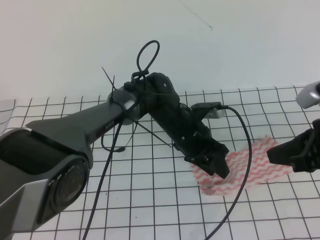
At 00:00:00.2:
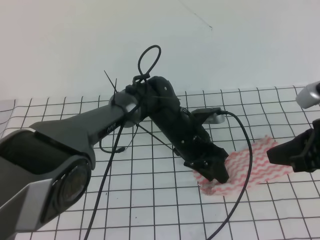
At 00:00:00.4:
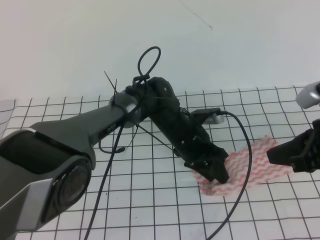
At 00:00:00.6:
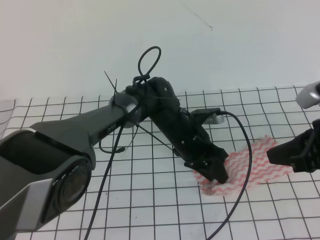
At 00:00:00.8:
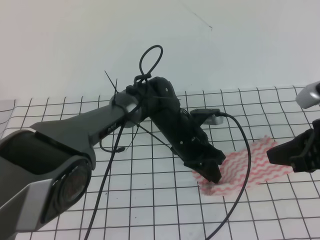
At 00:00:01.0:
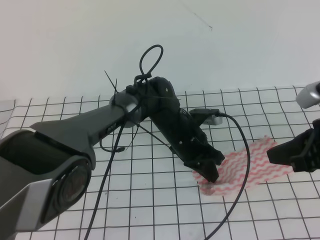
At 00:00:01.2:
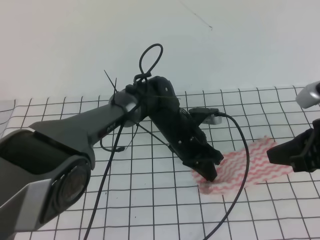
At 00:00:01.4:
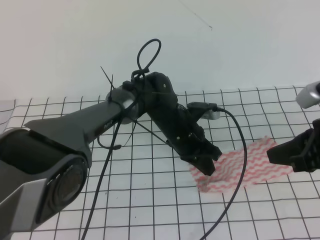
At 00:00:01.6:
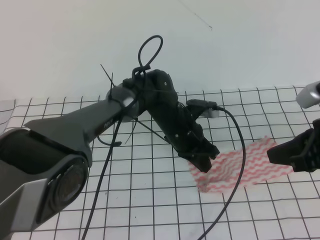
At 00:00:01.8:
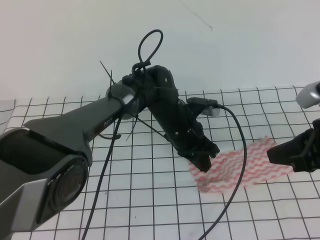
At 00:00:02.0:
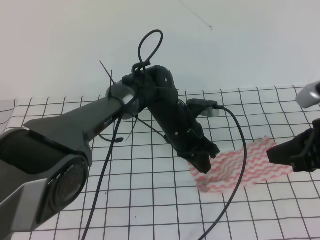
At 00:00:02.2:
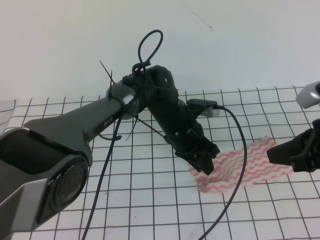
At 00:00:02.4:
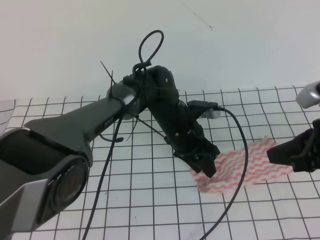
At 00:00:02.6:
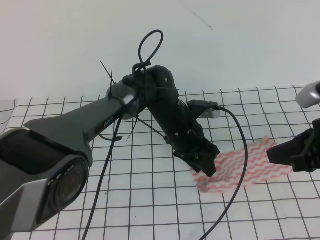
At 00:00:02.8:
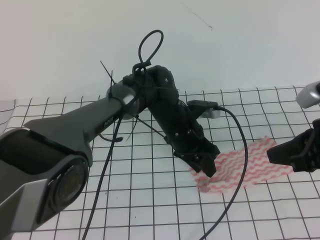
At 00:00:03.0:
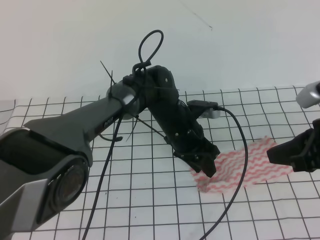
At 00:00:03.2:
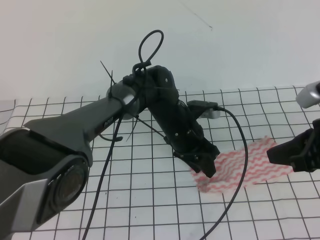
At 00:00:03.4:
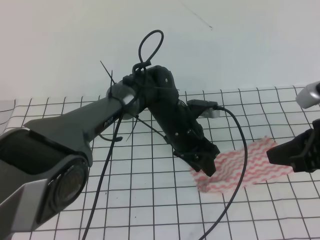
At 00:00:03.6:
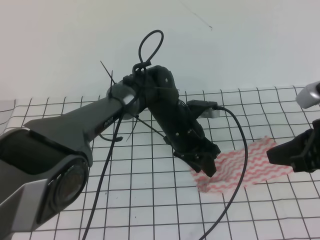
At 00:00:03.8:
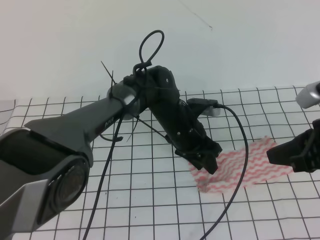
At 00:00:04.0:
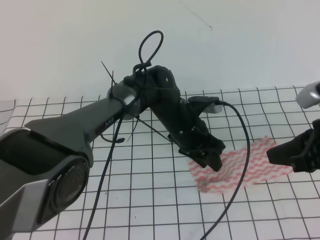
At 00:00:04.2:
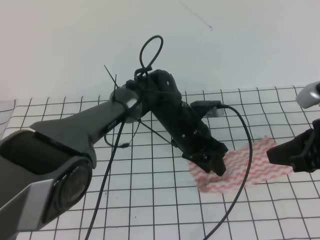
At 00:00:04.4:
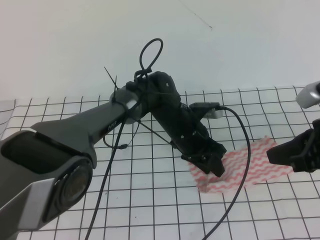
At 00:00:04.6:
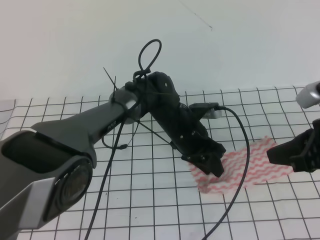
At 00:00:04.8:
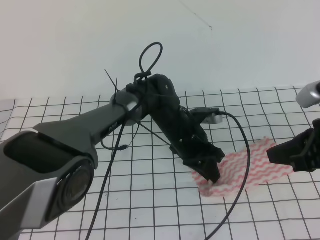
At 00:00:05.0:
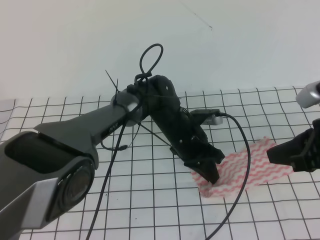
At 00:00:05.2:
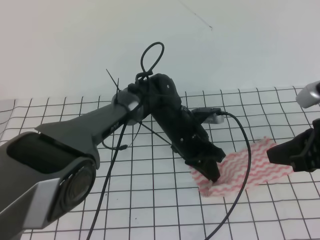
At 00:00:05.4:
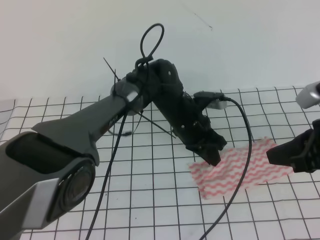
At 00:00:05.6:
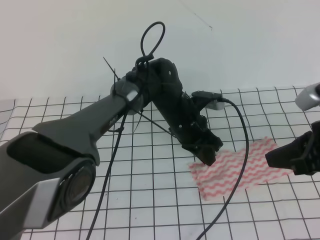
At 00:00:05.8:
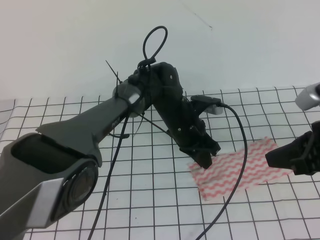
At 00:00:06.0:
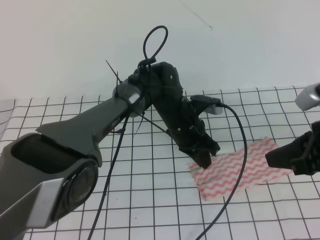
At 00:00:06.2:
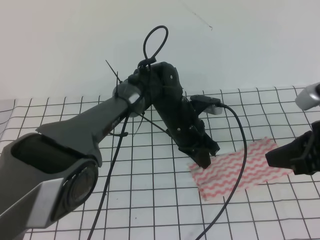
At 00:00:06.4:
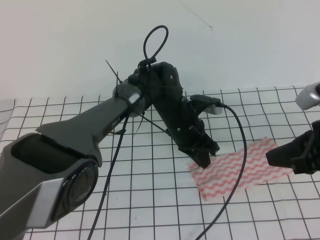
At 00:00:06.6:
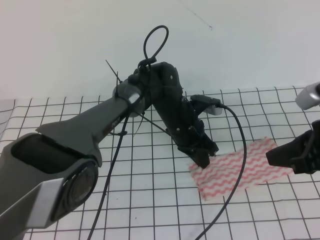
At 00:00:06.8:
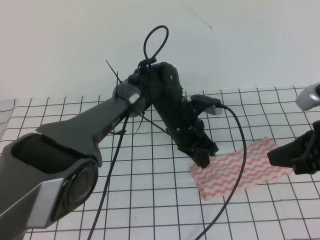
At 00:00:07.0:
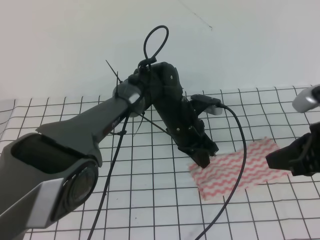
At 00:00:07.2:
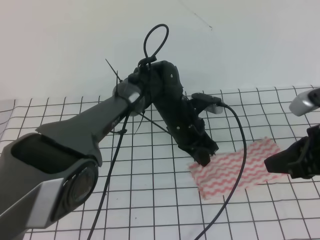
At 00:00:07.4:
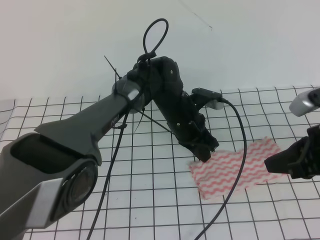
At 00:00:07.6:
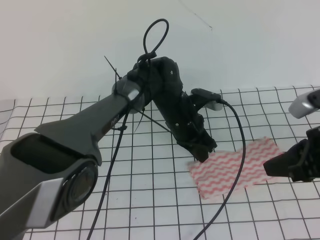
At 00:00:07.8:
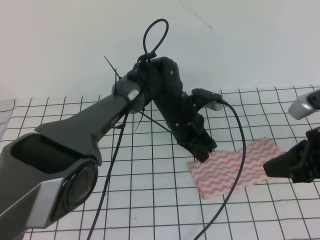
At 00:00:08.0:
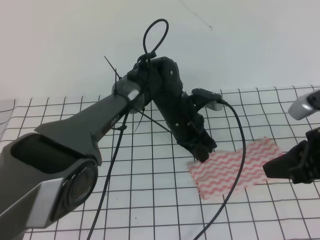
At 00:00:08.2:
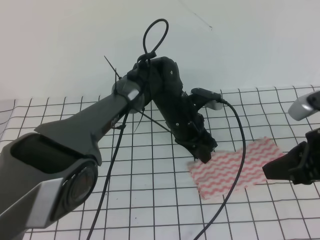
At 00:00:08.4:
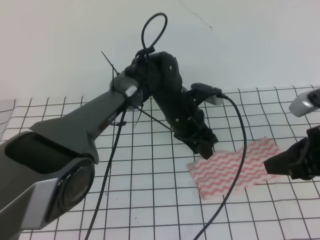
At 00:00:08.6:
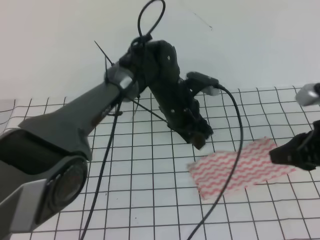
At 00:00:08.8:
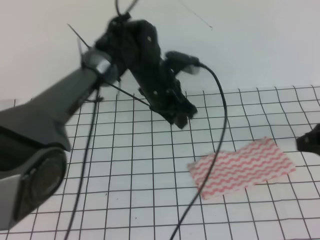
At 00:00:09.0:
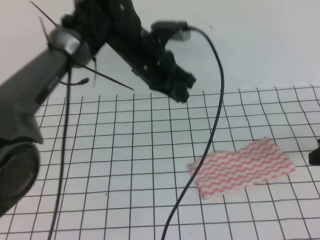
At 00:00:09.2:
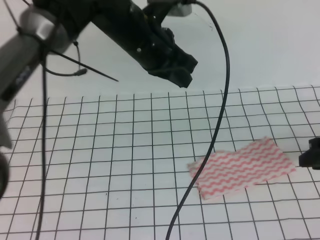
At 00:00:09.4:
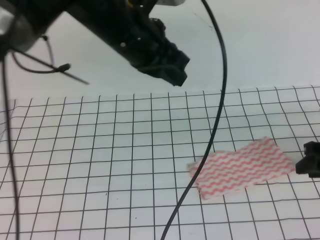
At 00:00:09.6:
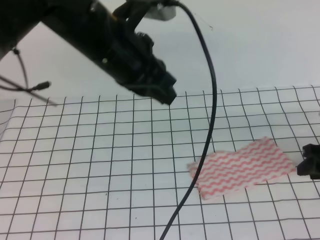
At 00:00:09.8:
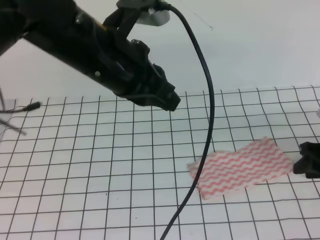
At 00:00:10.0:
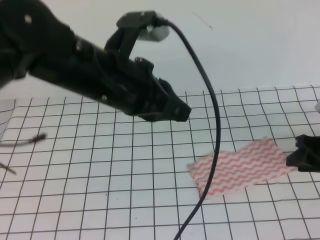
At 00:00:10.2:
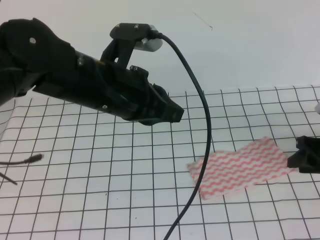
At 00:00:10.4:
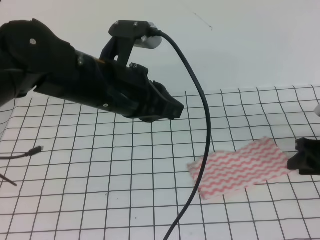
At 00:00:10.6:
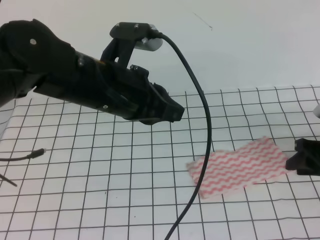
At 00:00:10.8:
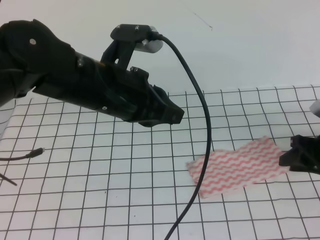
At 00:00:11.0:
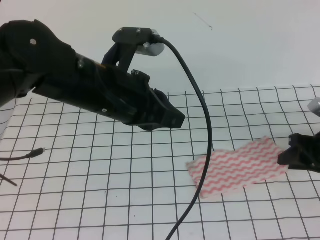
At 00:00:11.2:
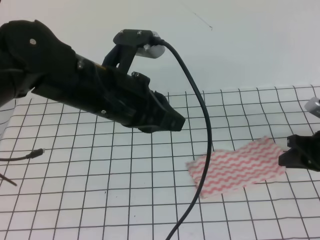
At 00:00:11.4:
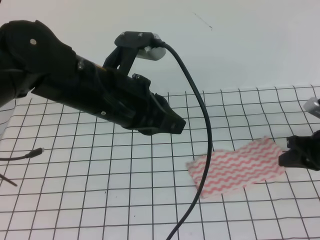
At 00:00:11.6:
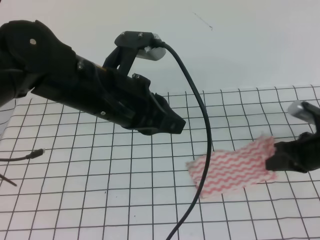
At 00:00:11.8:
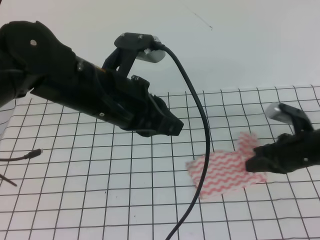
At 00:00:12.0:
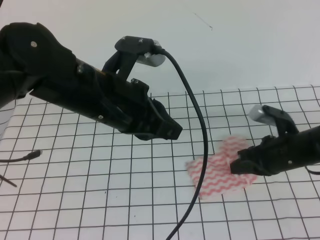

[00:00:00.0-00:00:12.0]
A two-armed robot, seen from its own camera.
00:00:00.0 to 00:00:01.6: The left gripper closes.
00:00:01.6 to 00:00:03.0: The left gripper opens up.
00:00:03.0 to 00:00:04.4: The grippers move only a little.
00:00:04.4 to 00:00:06.0: The left gripper closes.
00:00:06.0 to 00:00:07.6: The grippers move only a little.
00:00:07.6 to 00:00:09.0: The right gripper shifts approximately 5 cm to the right, and opens its fingers, while the left gripper goes some 15 cm upward and to the left, and opens and closes again.
00:00:09.0 to 00:00:10.4: The right gripper shifts approximately 10 cm downward. The left gripper travels backward and to the left by some 15 cm.
00:00:10.4 to 00:00:12.0: The right gripper is displaced to the left by some 10 cm, and closes its fingers.

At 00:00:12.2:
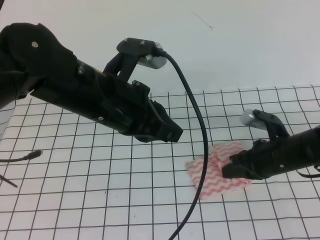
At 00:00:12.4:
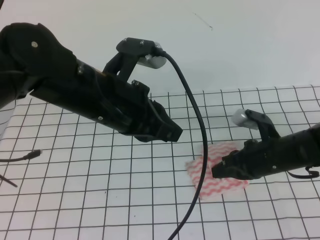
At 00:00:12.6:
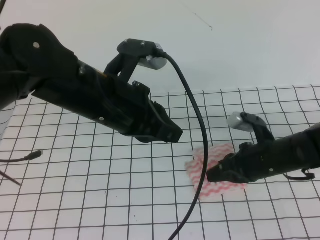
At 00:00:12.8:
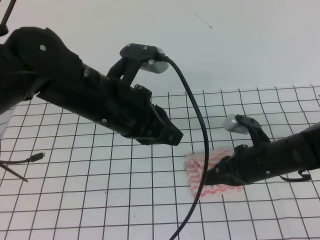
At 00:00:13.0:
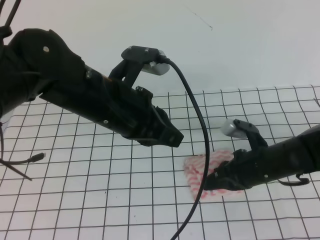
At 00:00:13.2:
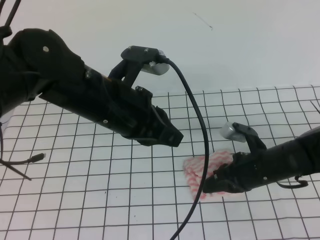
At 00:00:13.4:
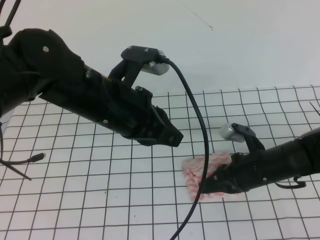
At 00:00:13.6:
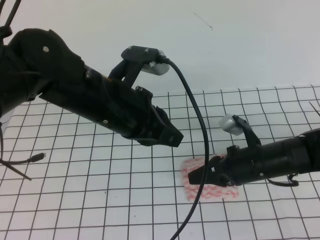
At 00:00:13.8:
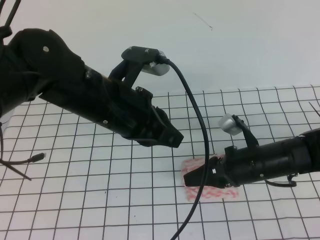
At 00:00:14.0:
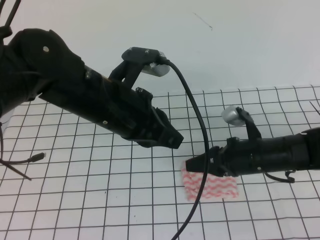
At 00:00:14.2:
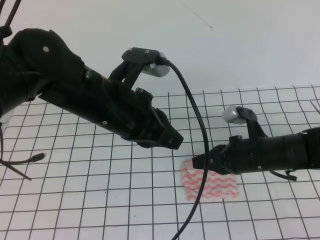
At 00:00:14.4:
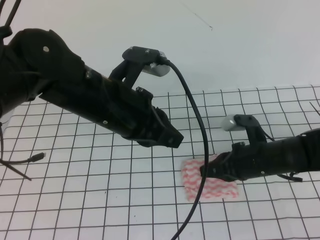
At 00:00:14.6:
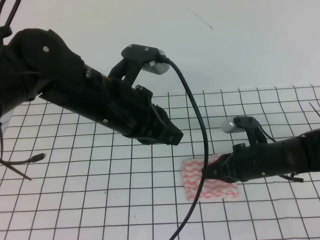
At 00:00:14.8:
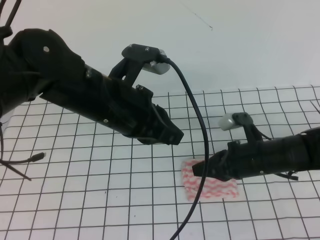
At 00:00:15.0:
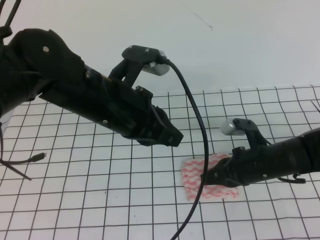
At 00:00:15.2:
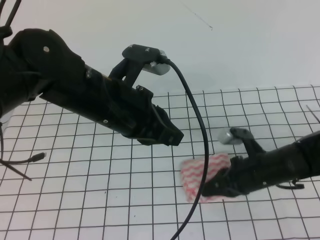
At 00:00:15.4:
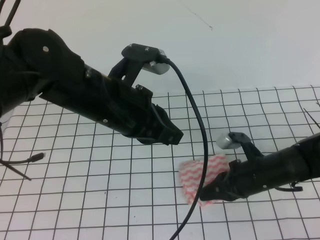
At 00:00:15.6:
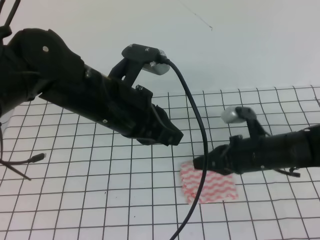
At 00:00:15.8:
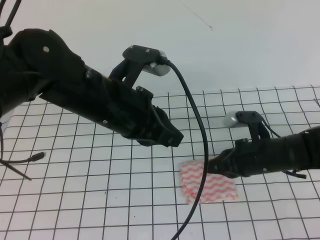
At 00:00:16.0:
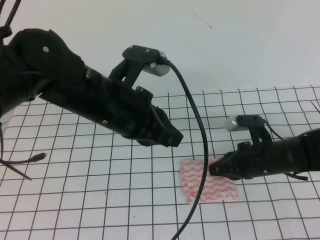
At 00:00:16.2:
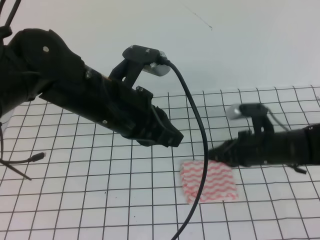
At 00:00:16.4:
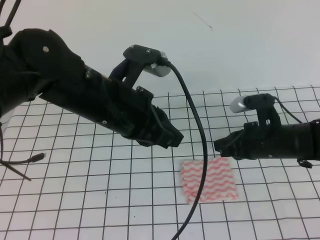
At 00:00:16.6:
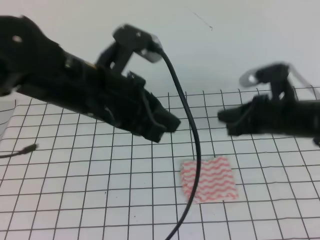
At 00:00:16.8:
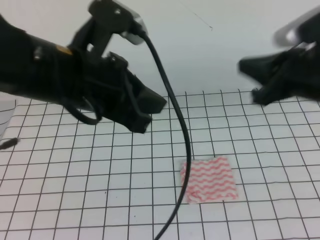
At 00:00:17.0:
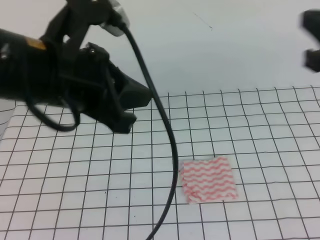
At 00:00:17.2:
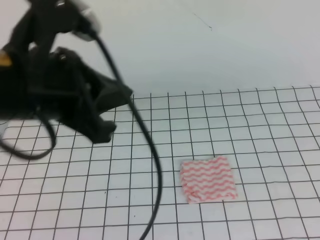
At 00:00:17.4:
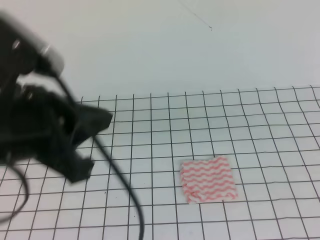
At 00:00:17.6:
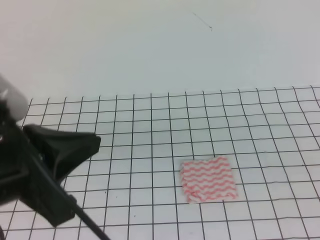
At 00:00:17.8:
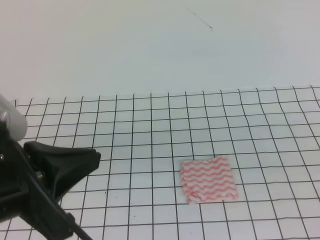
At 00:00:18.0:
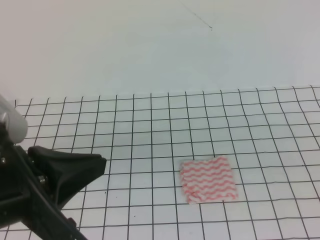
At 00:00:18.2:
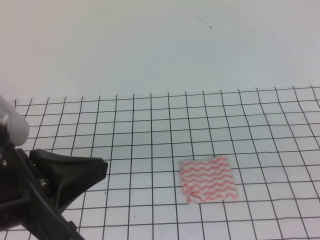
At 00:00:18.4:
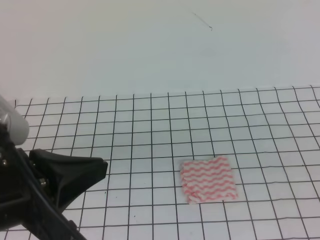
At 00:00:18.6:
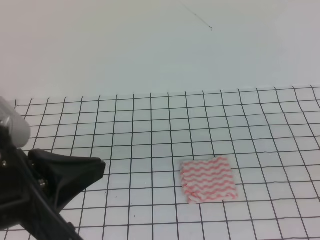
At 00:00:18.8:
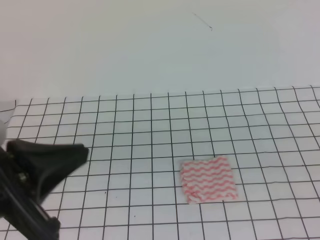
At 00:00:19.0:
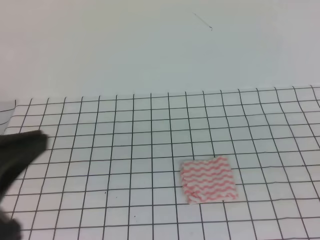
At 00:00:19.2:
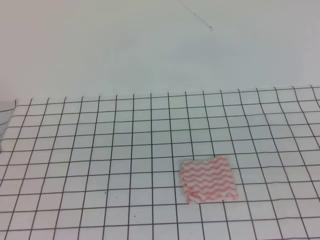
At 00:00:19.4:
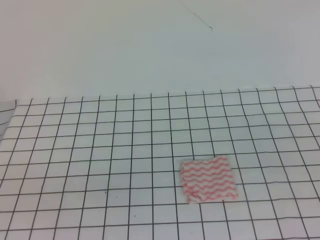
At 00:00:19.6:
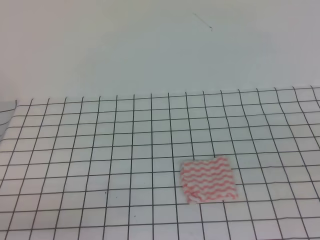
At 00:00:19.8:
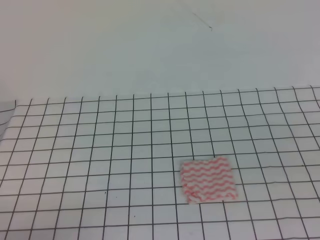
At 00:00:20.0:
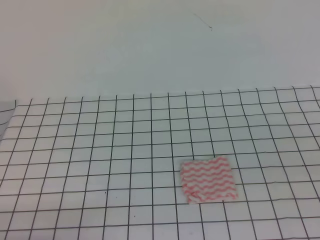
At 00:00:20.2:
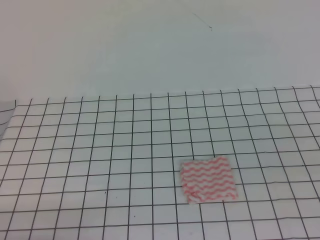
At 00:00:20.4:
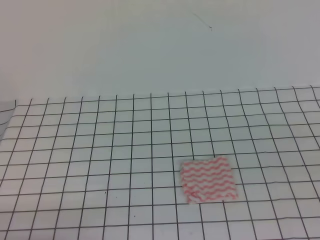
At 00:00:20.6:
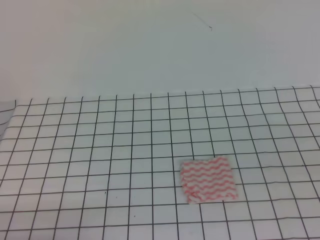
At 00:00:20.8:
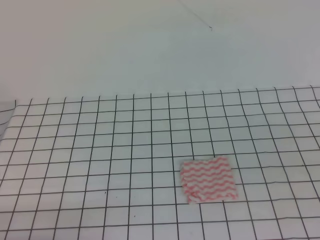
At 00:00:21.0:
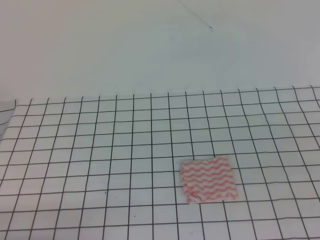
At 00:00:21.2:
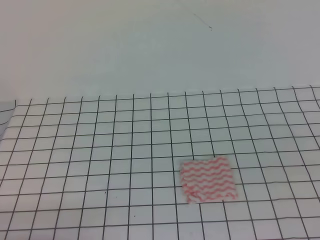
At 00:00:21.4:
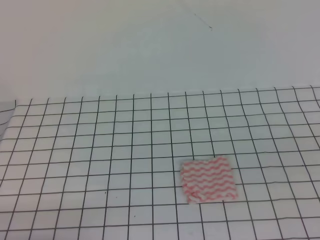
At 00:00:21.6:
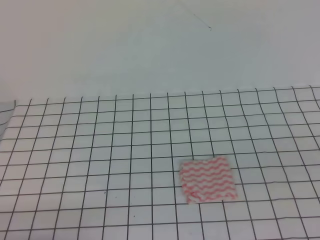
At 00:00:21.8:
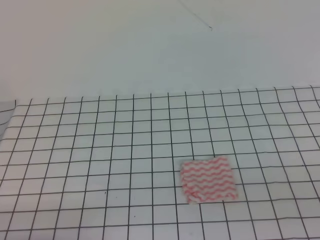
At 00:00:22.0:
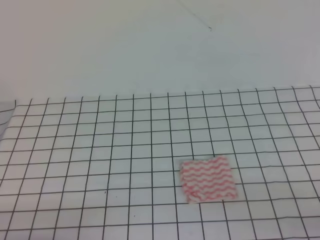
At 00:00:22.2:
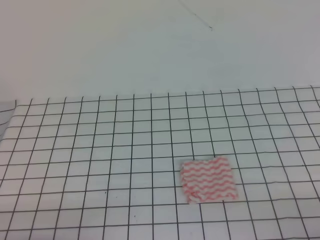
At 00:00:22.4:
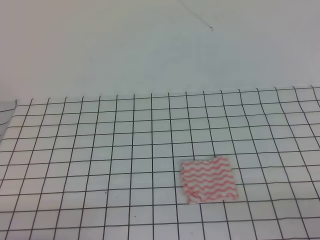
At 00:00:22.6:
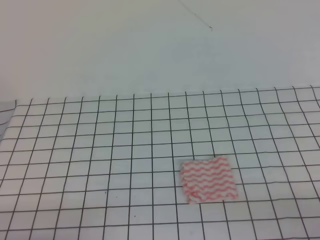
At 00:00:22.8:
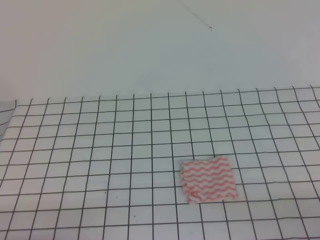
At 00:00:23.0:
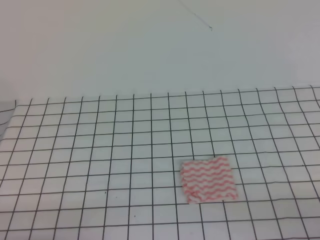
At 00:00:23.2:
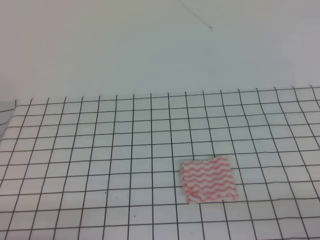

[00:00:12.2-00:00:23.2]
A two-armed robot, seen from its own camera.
Step, 00:00:12.2 to 00:00:23.2: Fold the towel.
00:00:12.2 to 00:00:13.8: The right gripper opens its fingers.
00:00:13.8 to 00:00:15.4: The right gripper closes its fingers.
00:00:15.4 to 00:00:17.0: The right gripper is displaced upward by some 25 cm. The left gripper shifts roughly 10 cm upward and backward.
00:00:17.0 to 00:00:18.4: The left gripper travels backward and to the left by some 10 cm. The right gripper heads backward and downward, covering approximately 15 cm.
00:00:18.4 to 00:00:20.0: The left gripper heads downward and to the left, covering some 20 cm.
